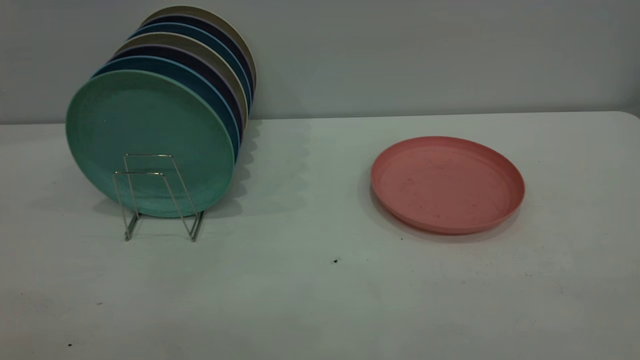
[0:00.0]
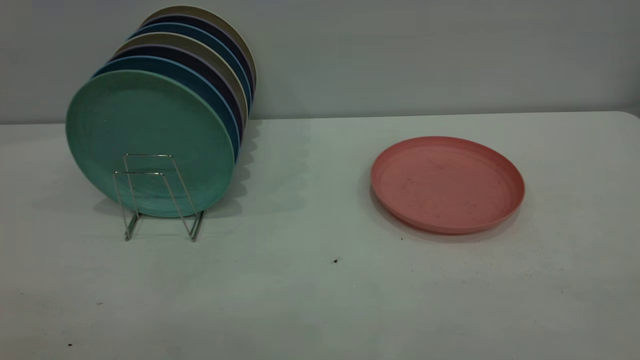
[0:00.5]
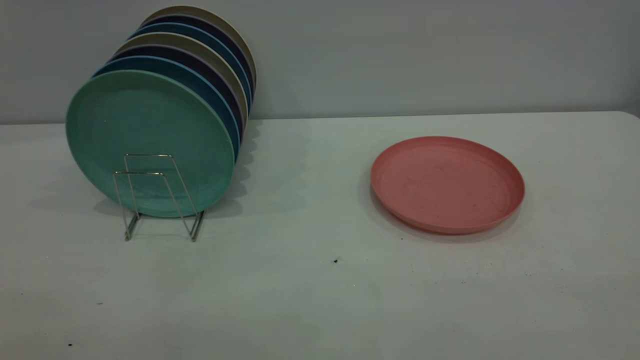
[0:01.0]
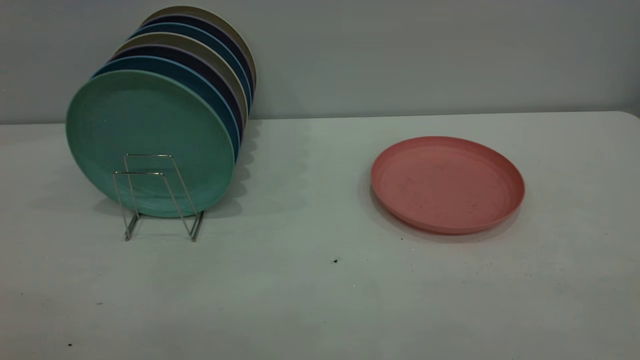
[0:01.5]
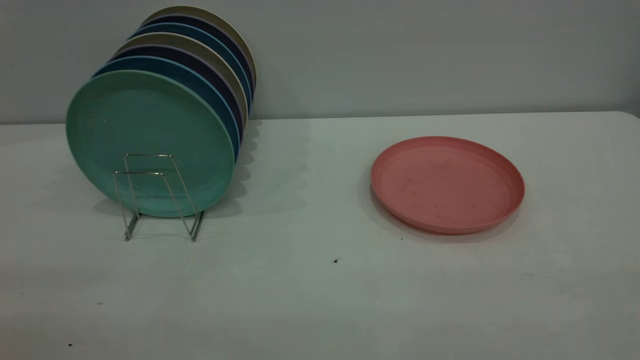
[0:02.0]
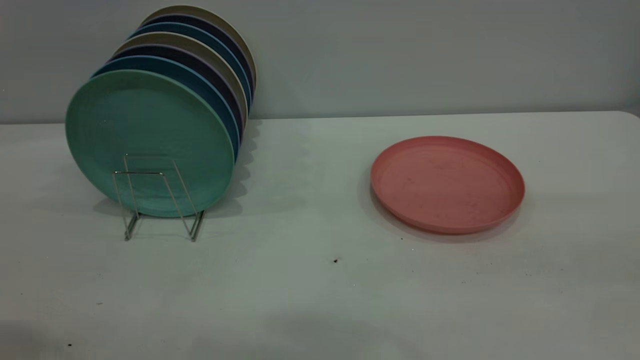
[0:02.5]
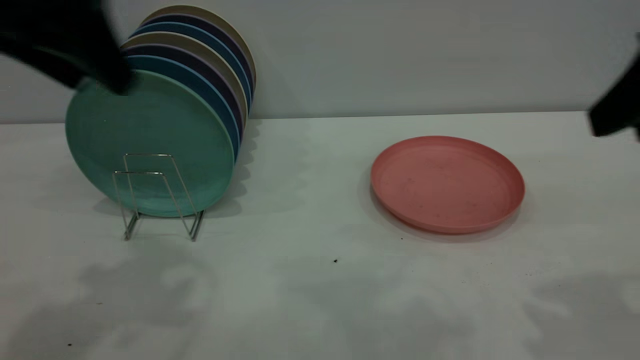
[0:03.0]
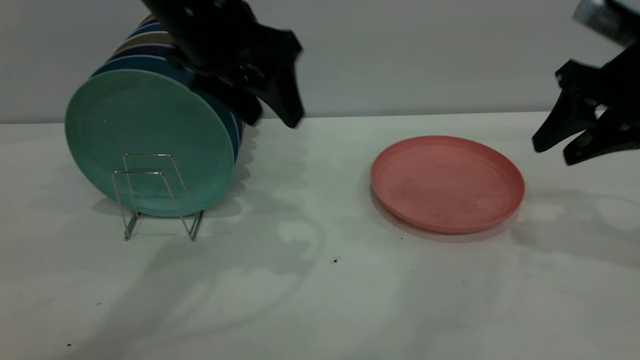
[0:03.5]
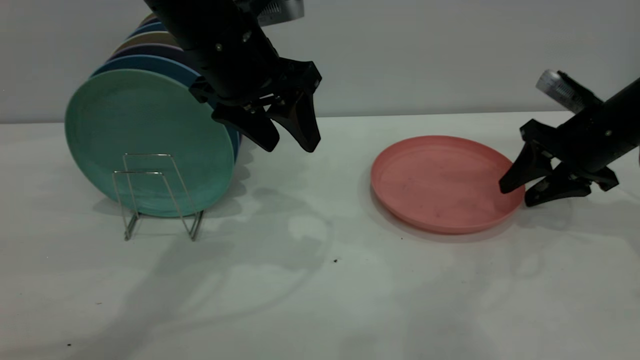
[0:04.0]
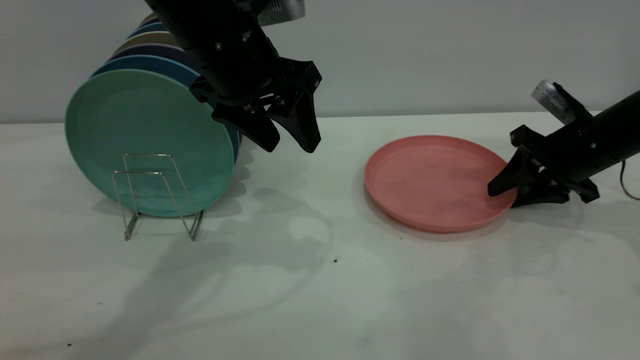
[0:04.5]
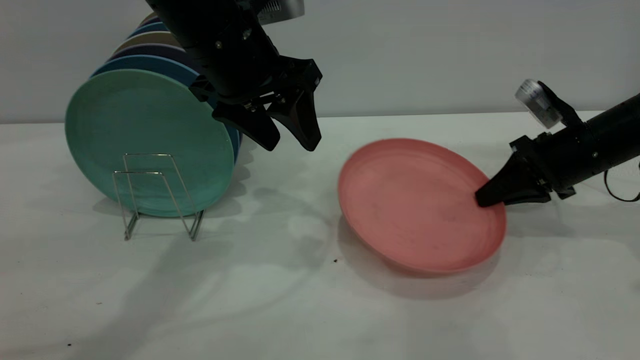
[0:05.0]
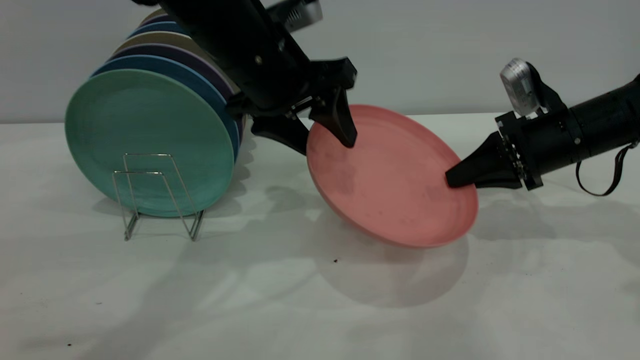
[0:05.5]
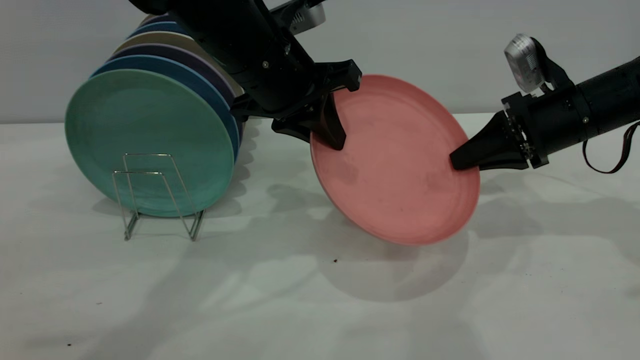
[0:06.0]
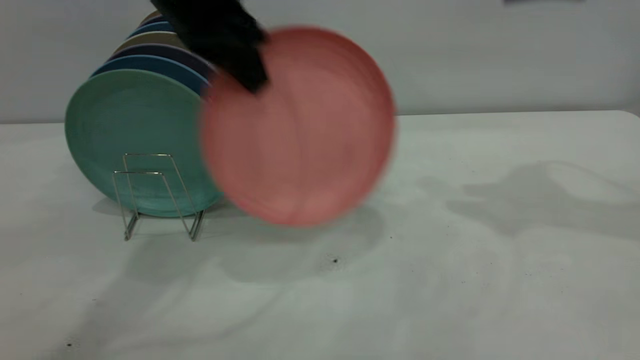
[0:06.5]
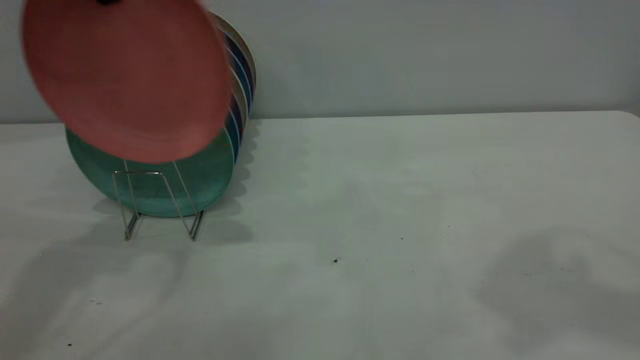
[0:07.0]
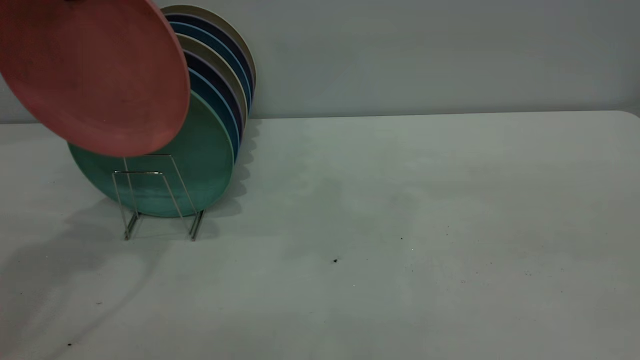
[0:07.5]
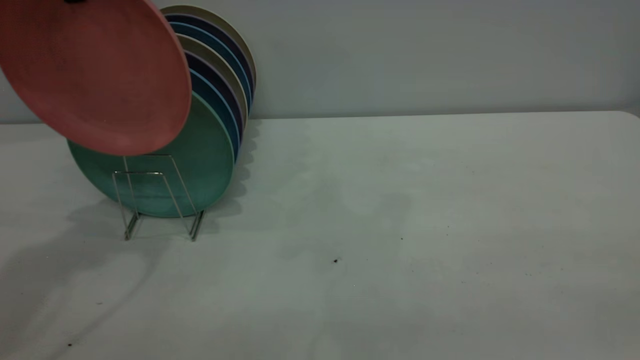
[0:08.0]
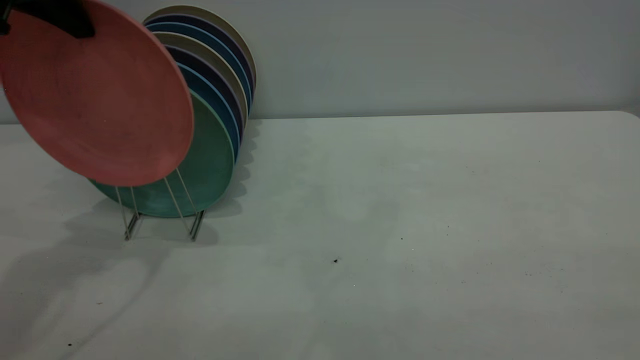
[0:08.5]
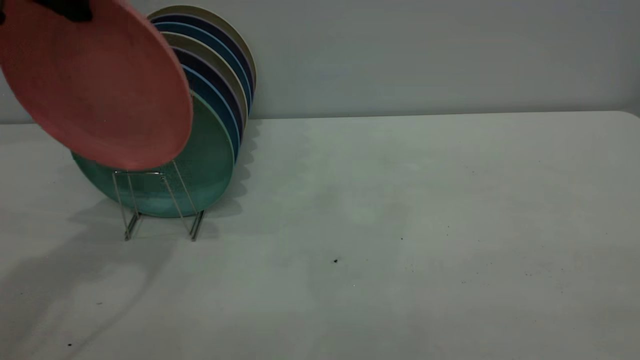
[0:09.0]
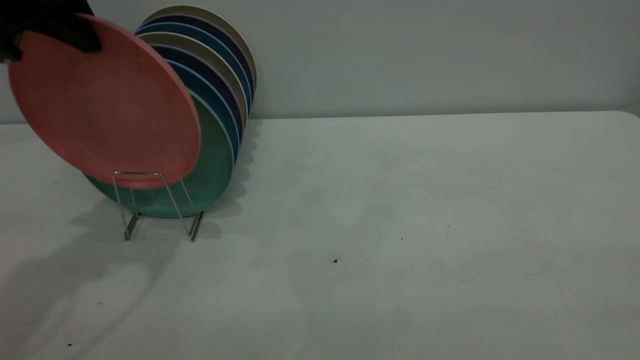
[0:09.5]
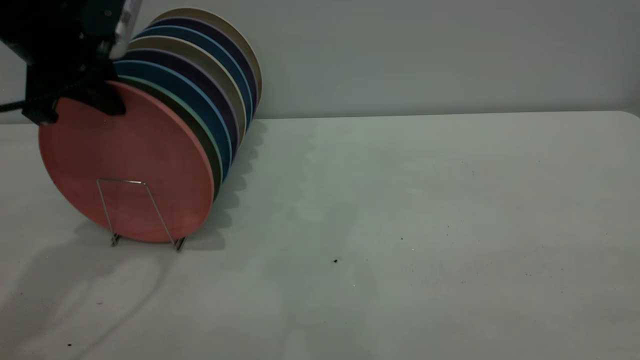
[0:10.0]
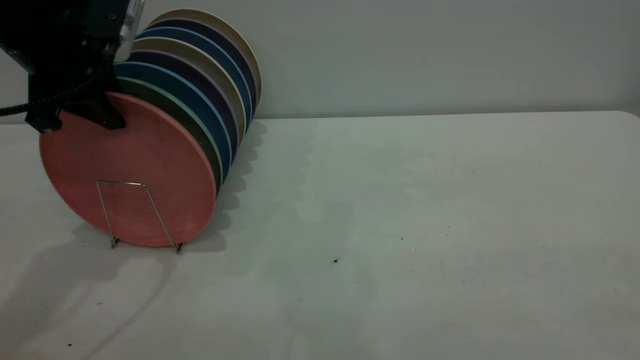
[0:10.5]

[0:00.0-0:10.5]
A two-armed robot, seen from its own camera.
Task of the whole recording: the right gripper grasp the pink plate, the right gripper pass the pink plate to the left gripper, and the left gripper place the pink plate on the plate rack.
Step, 0.0 to 5.0 s: Pick up the plate with the right gripper.
Step, 5.5 to 6.0 s: Pass the plate from the right gripper to the left gripper.
2.0 to 4.0 s: The right gripper goes approximately 50 cm forward and downward, and opens its fingers. The left gripper travels forward and to the right by approximately 40 cm.
4.0 to 6.5 s: The left gripper moves upward, approximately 5 cm, and closes, while the right gripper heads upward, covering approximately 25 cm, and closes, then reopens.
6.5 to 8.5 s: The right gripper is displaced backward by about 40 cm. The left gripper moves to the left, approximately 10 cm.
8.5 to 10.5 s: The left gripper heads downward, covering roughly 10 cm, and opens.

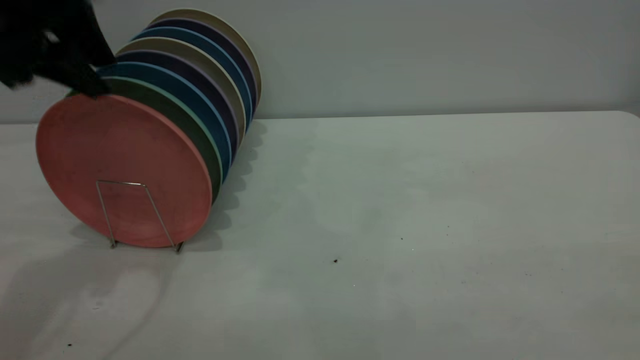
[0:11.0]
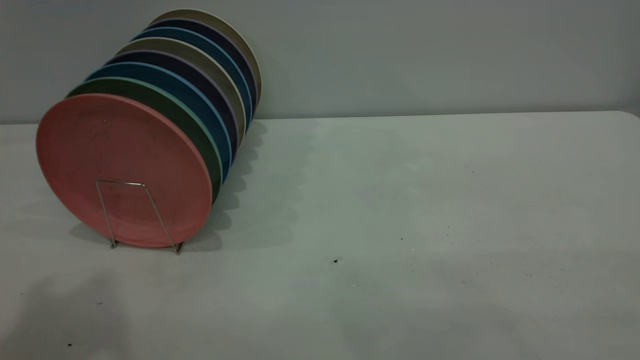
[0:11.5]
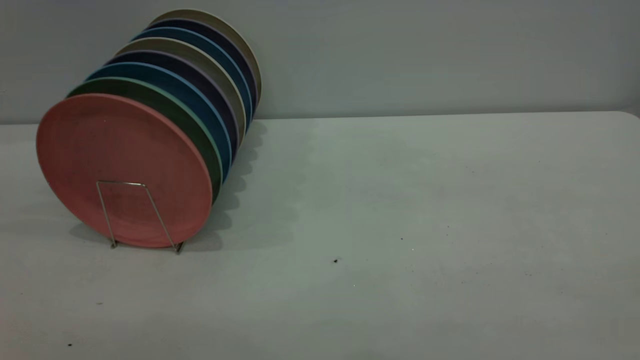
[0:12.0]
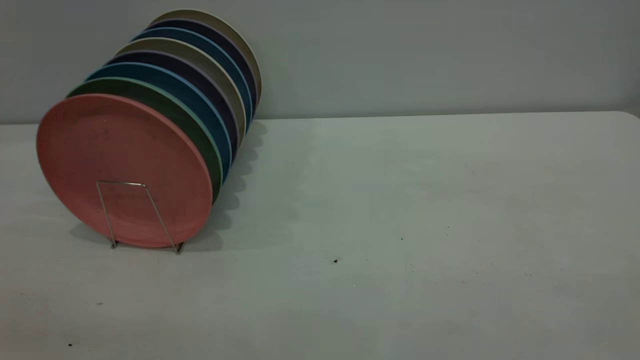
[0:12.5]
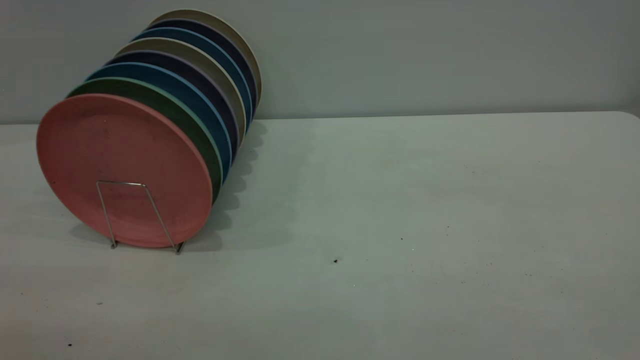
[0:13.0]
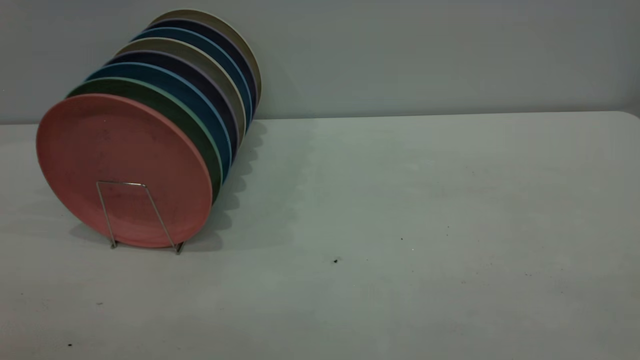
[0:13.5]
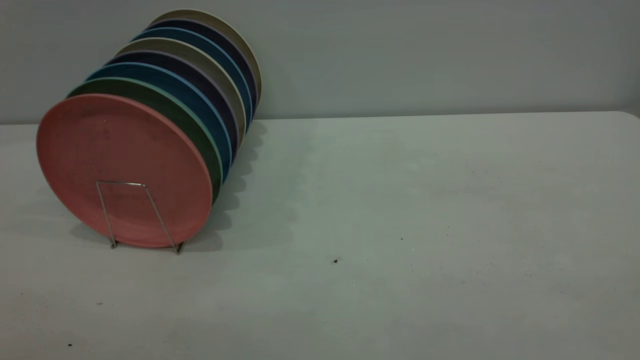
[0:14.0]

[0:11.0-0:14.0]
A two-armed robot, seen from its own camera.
Task of the whole recording: the right gripper grasp the pink plate, the right gripper pass the pink plate to the left gripper, and the left gripper place the pink plate on the plate rack.
11.0 to 12.5 s: The left gripper travels backward by approximately 30 cm.

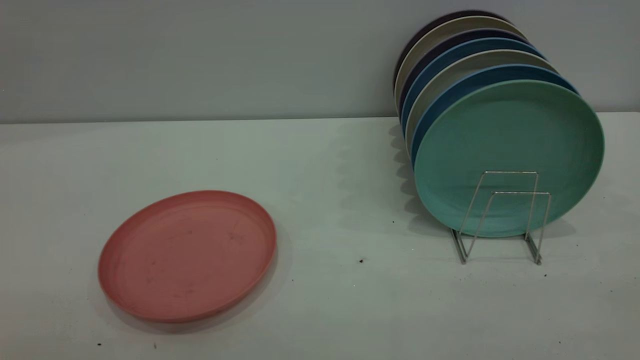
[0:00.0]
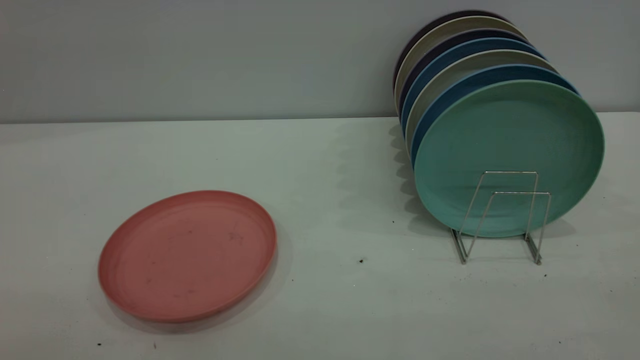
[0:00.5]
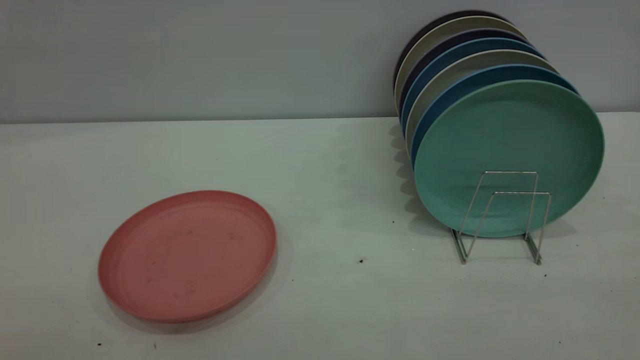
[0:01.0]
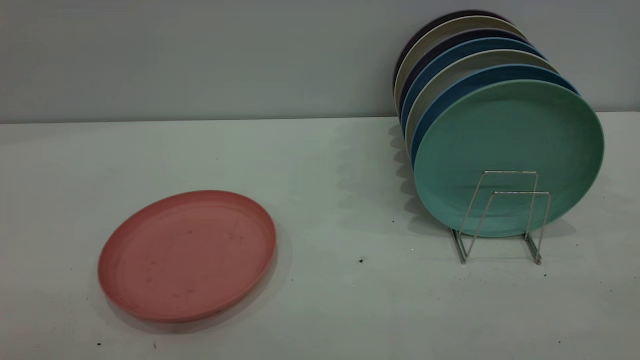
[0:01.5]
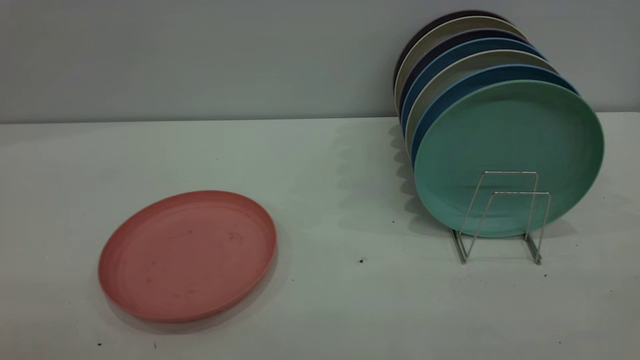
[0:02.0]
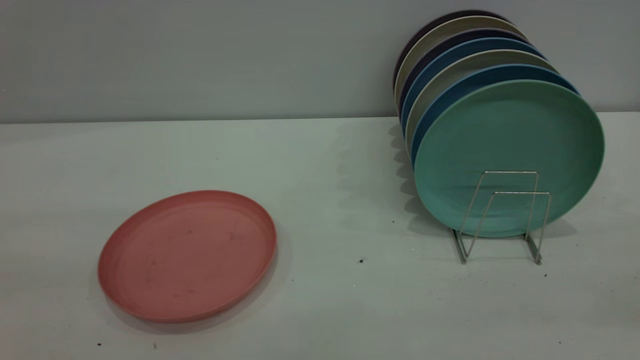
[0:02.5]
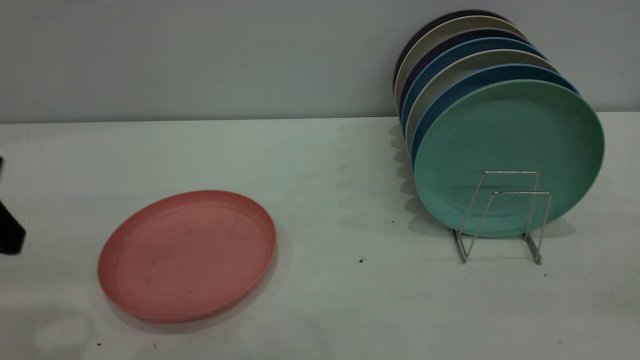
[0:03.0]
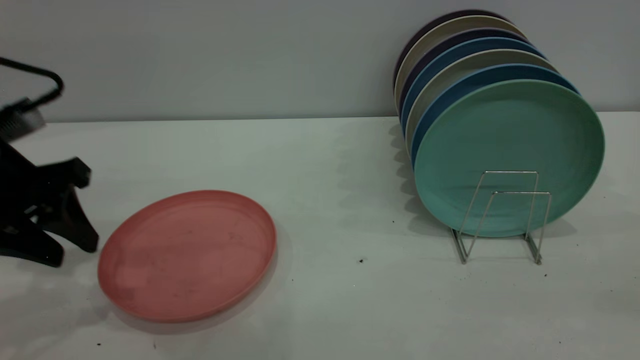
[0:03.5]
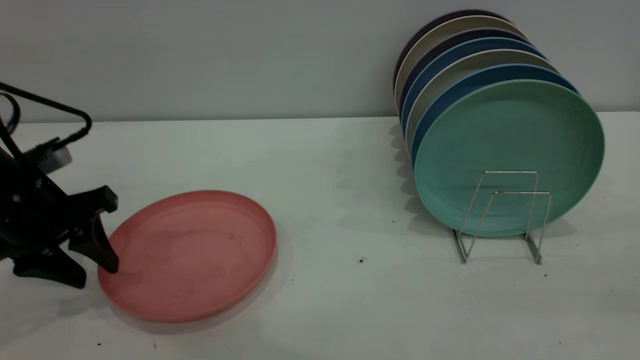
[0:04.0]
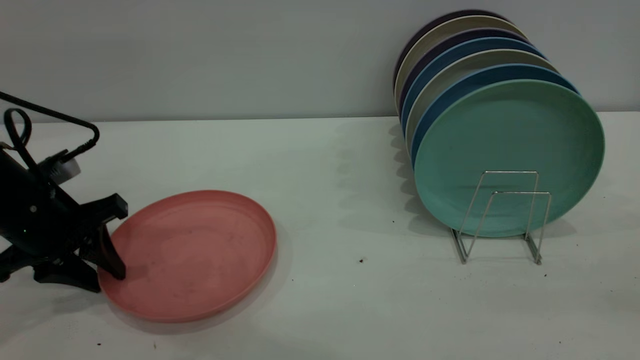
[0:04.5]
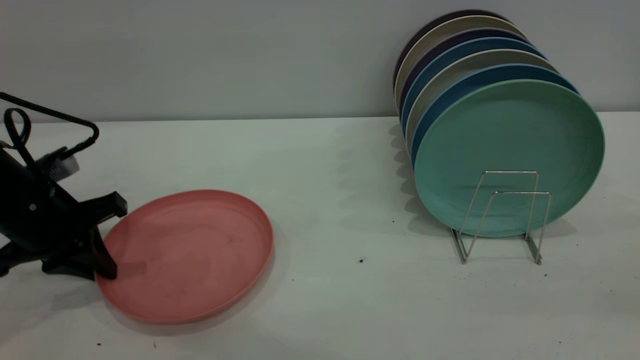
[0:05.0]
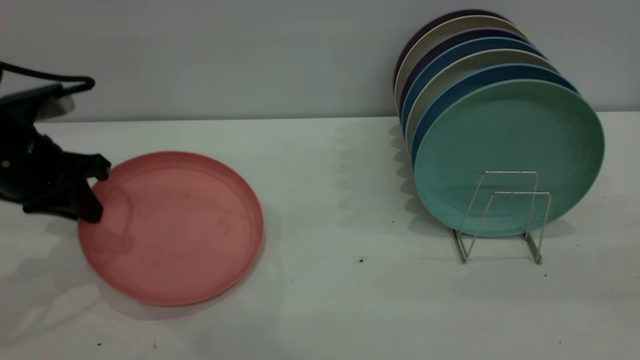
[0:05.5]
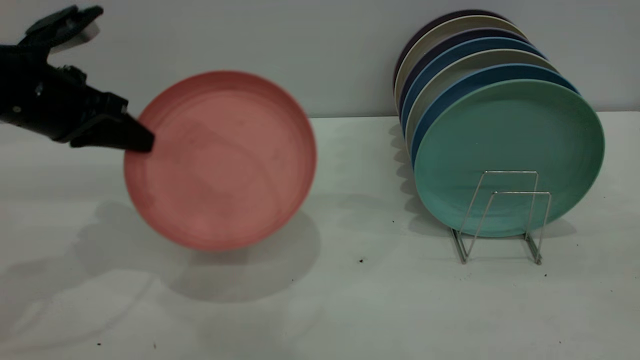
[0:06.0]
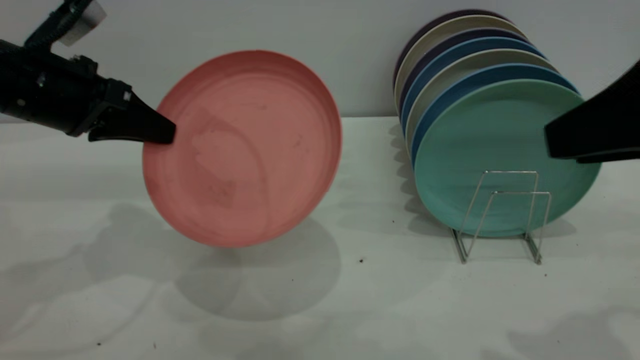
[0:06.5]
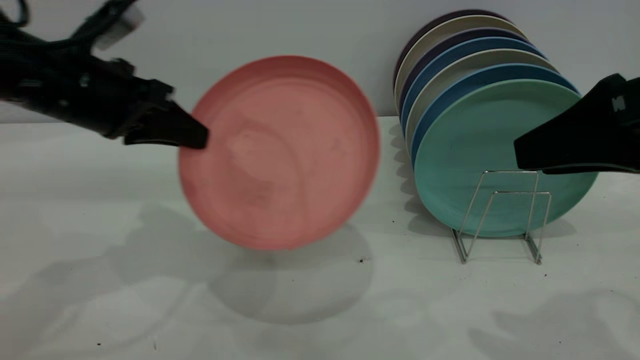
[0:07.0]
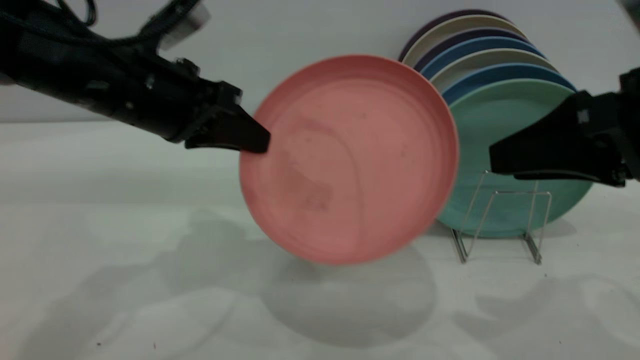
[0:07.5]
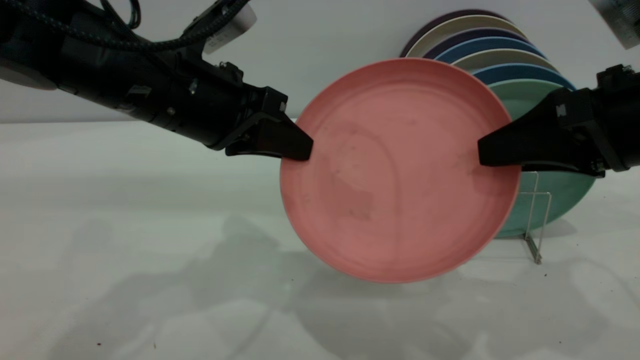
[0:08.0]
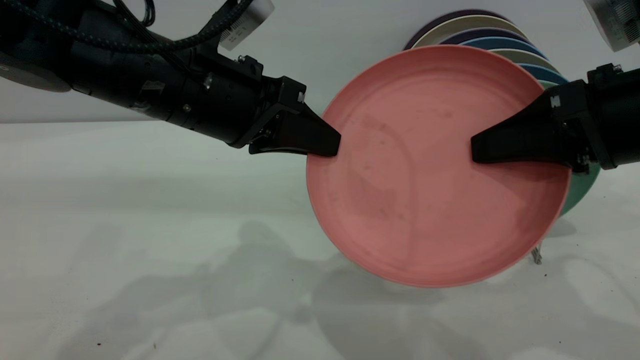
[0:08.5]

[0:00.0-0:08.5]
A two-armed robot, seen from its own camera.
Task of the whole recording: put the plate on the plate rack.
Step, 0.0 to 5.5 s: Pick up the plate with the left gripper.
Step, 6.0 to 8.0 s: Pass the plate from the left gripper to the right gripper.
2.0 to 4.0 s: The left gripper travels forward and downward by about 40 cm.
4.0 to 6.5 s: The left gripper heads upward, covering approximately 10 cm, and closes up; the right gripper moves forward and downward, roughly 15 cm.
6.5 to 8.5 s: The left gripper goes roughly 15 cm to the right. The right gripper goes some 10 cm forward and downward, and closes its fingers.
